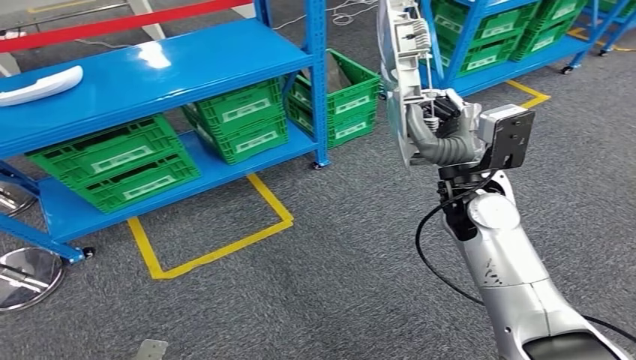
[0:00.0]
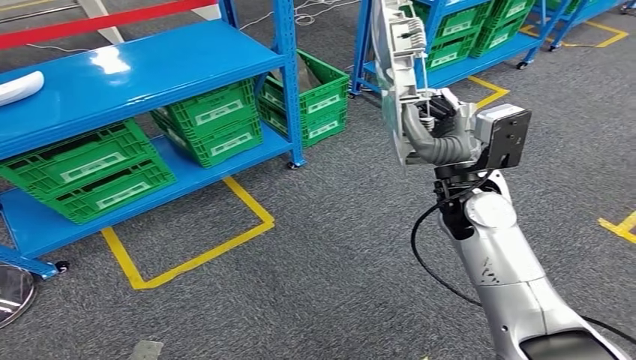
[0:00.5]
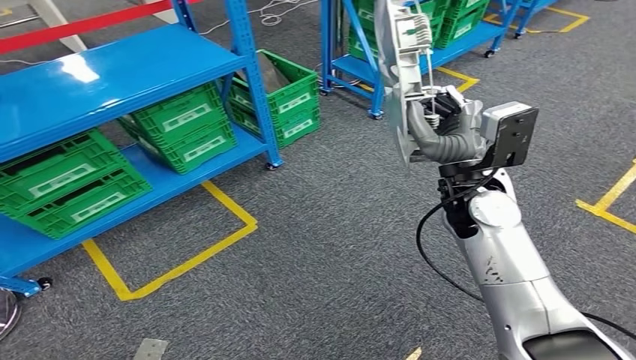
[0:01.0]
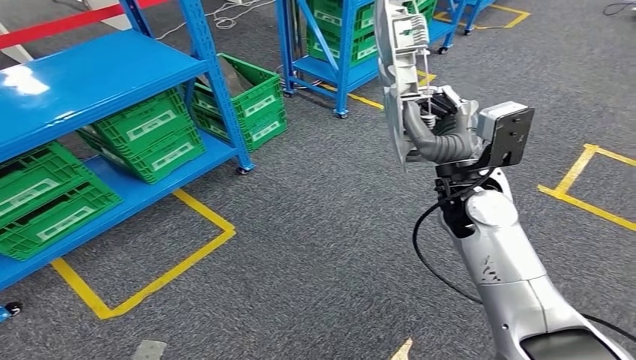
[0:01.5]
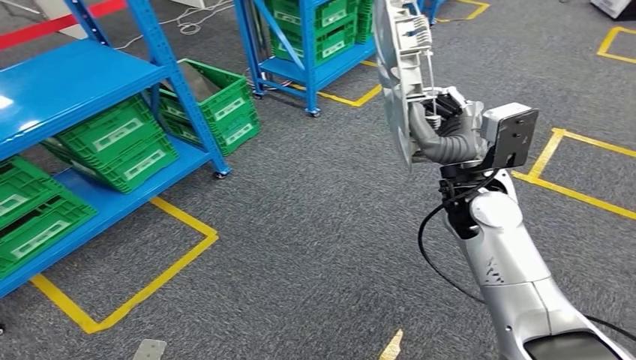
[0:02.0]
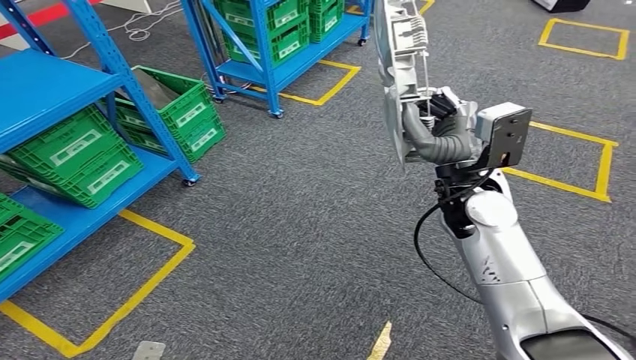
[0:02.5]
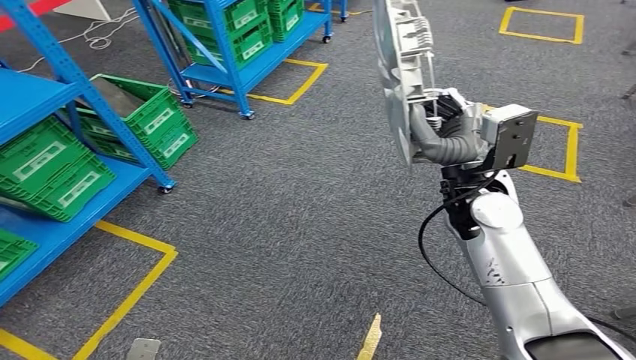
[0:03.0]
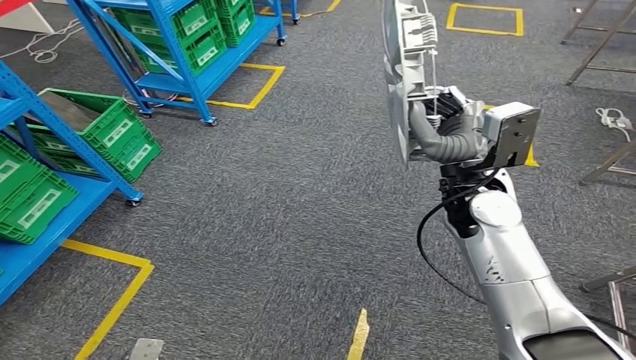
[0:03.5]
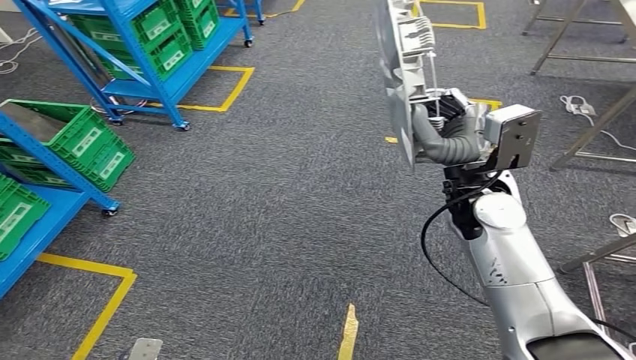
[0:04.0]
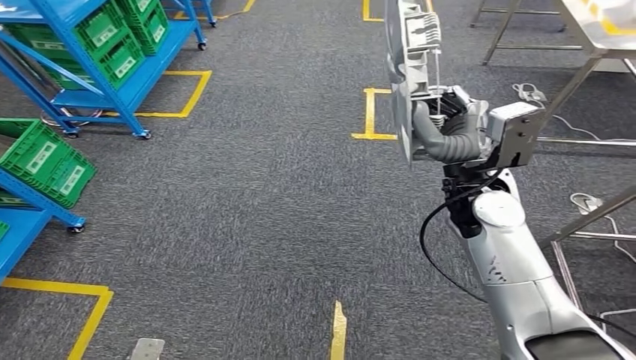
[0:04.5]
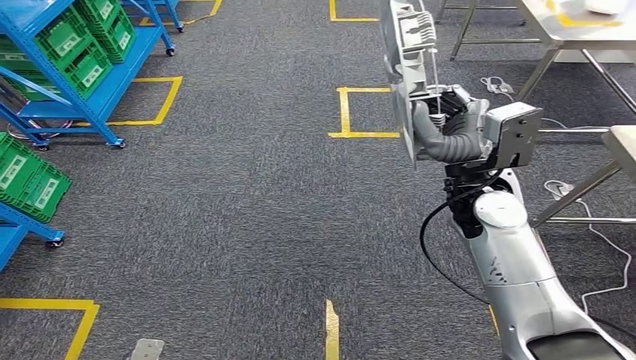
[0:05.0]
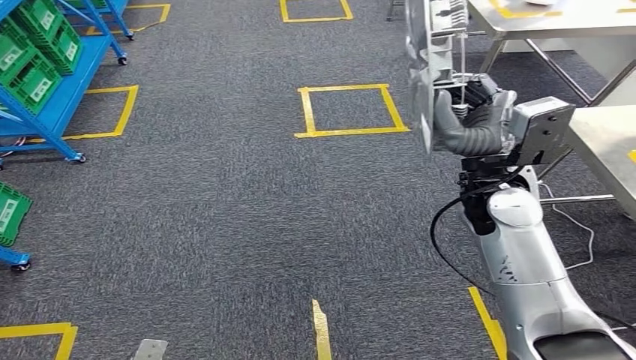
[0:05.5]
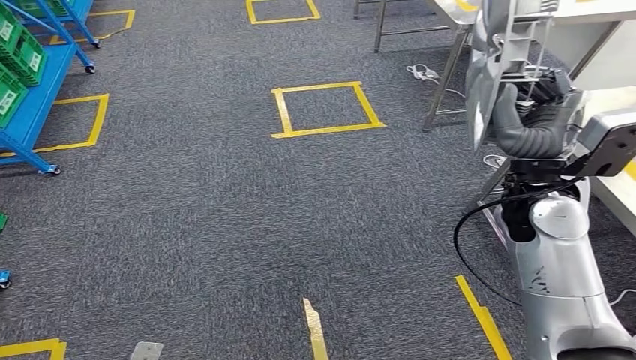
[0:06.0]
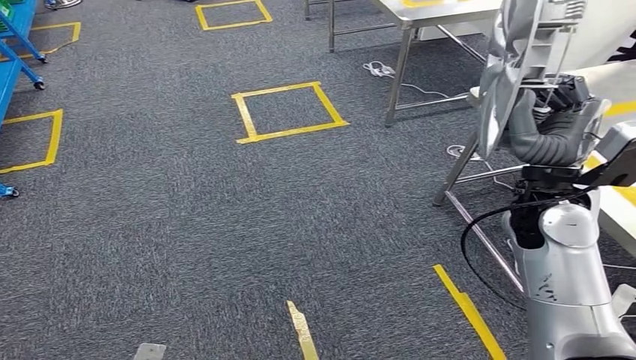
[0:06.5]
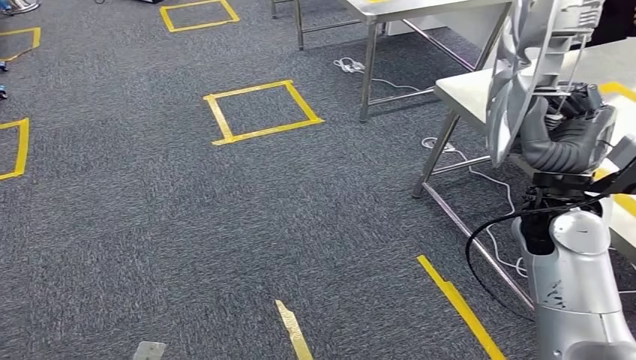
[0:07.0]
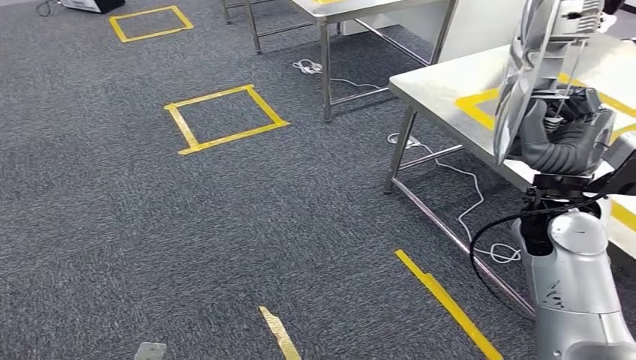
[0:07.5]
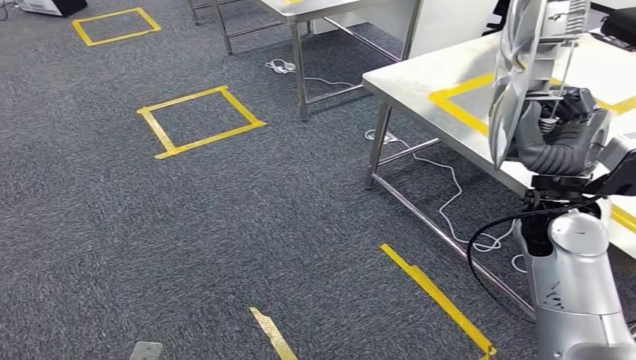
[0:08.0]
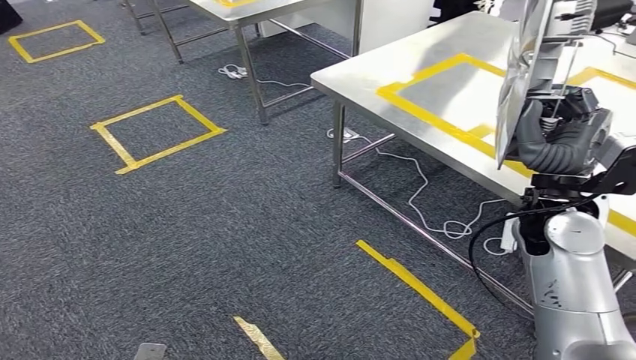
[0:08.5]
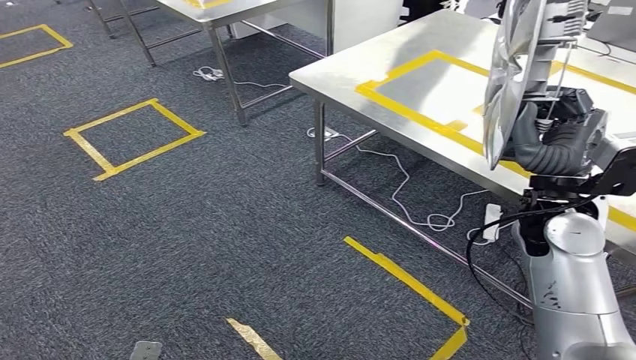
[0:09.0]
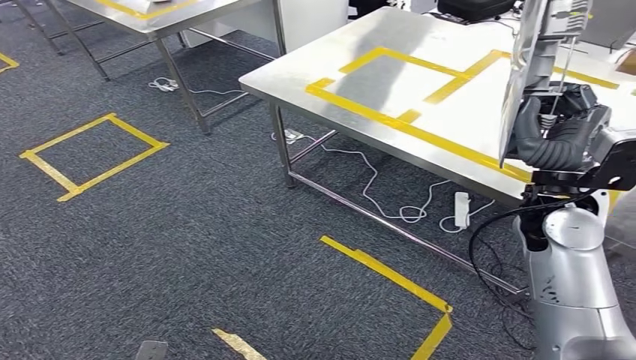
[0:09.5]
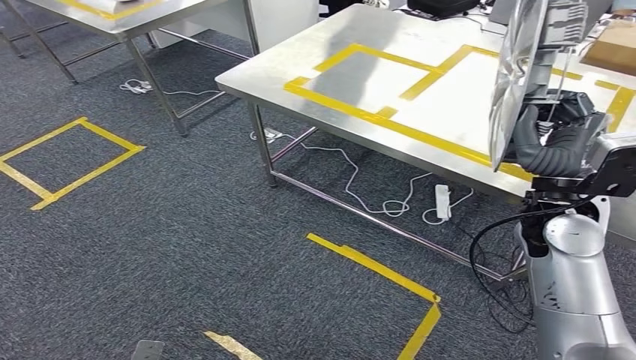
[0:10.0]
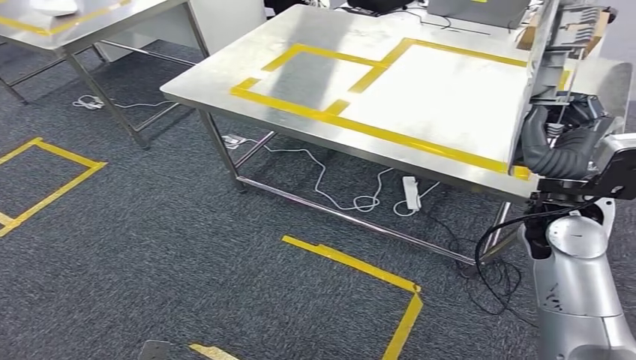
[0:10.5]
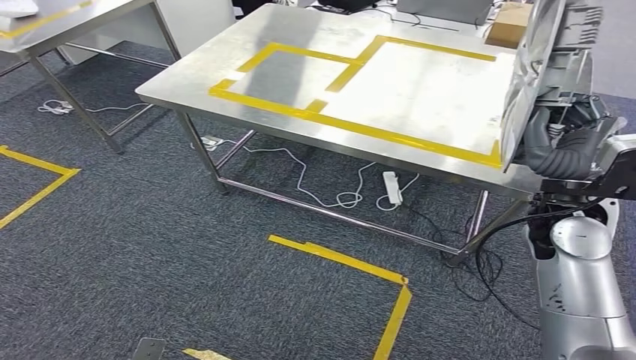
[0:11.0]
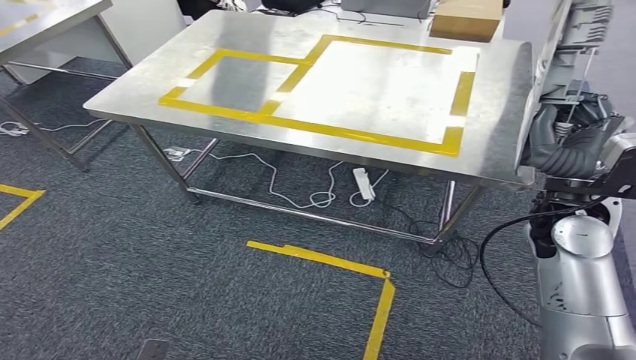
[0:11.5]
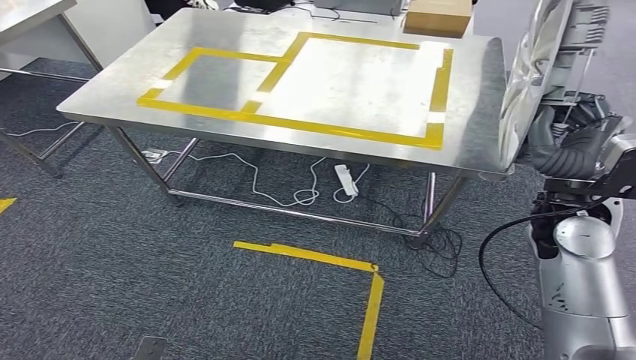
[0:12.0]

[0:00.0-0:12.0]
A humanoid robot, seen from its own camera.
Step, 0:00.0 to 0:02.5: Move the small component to the workbench.

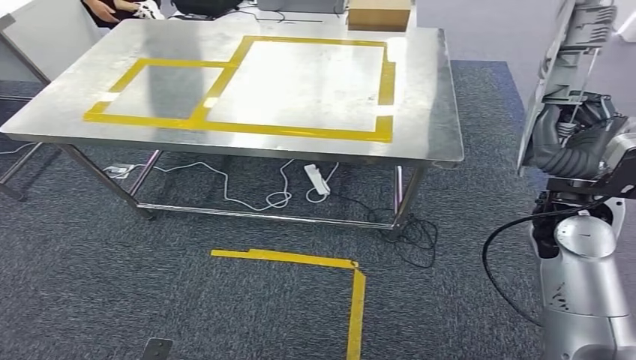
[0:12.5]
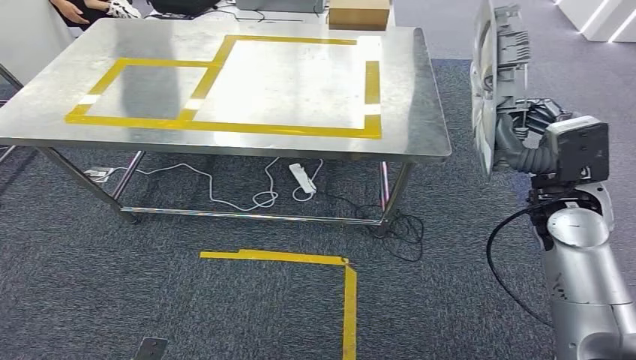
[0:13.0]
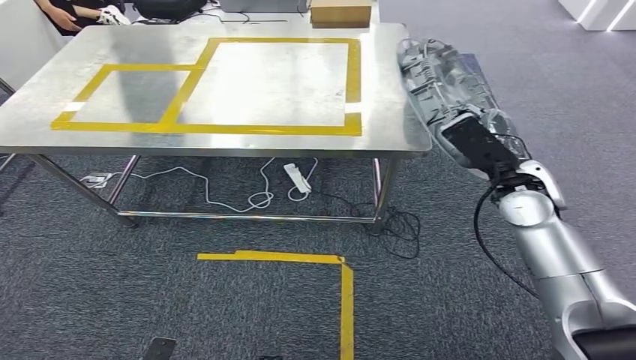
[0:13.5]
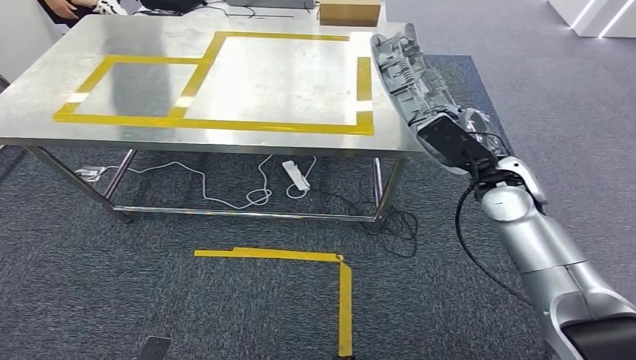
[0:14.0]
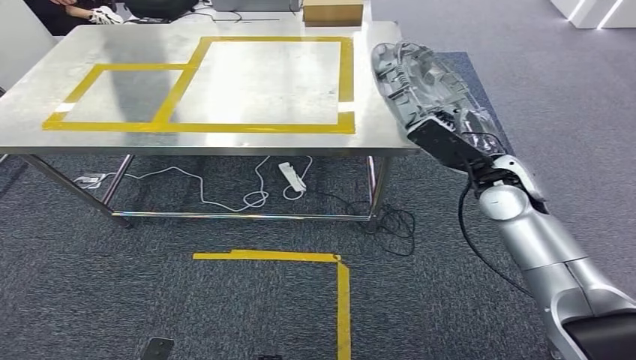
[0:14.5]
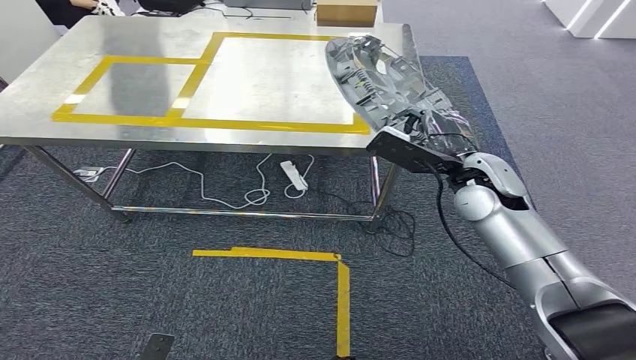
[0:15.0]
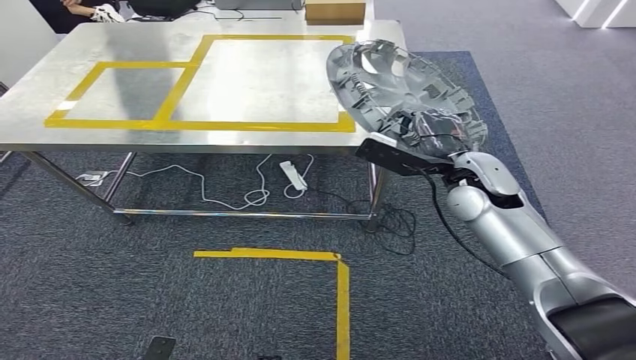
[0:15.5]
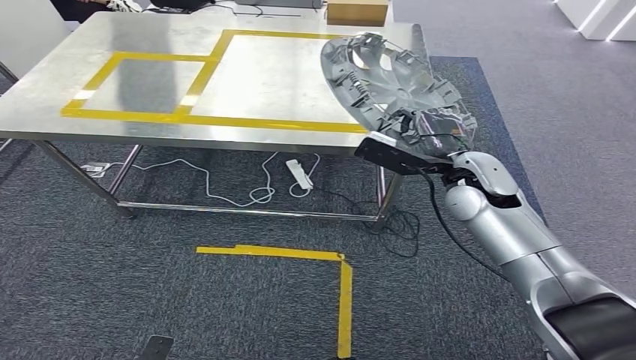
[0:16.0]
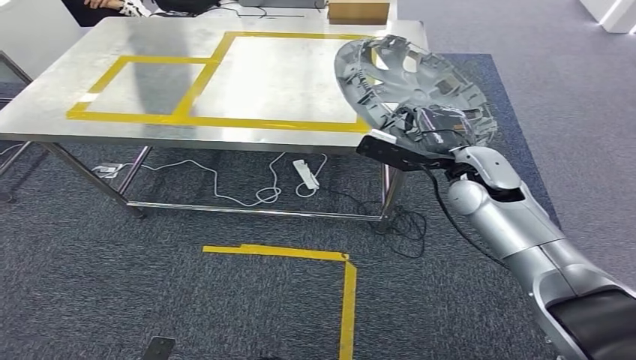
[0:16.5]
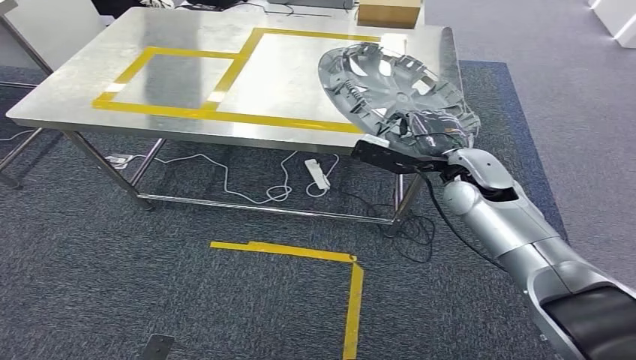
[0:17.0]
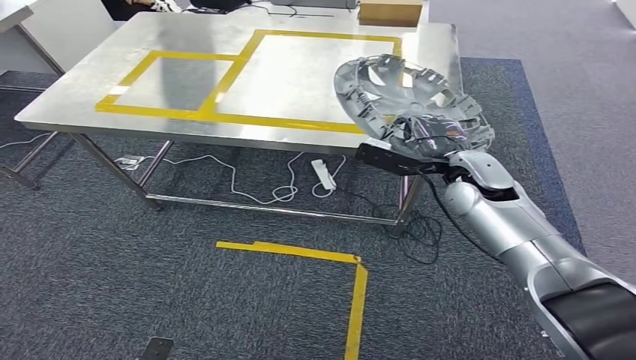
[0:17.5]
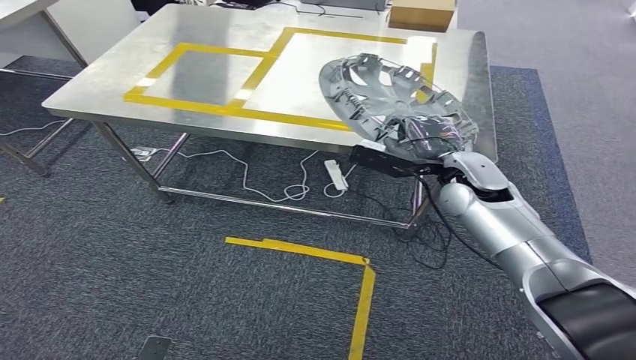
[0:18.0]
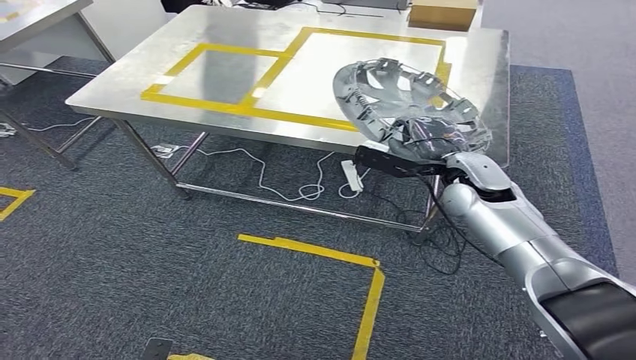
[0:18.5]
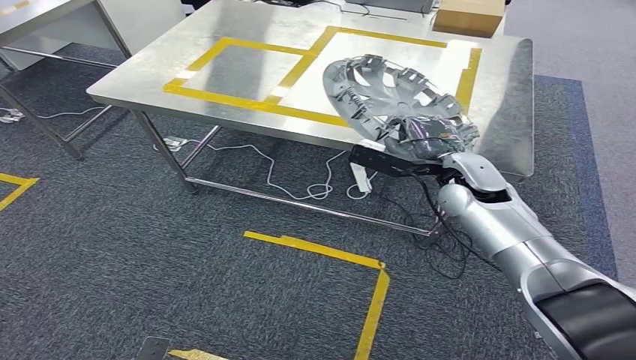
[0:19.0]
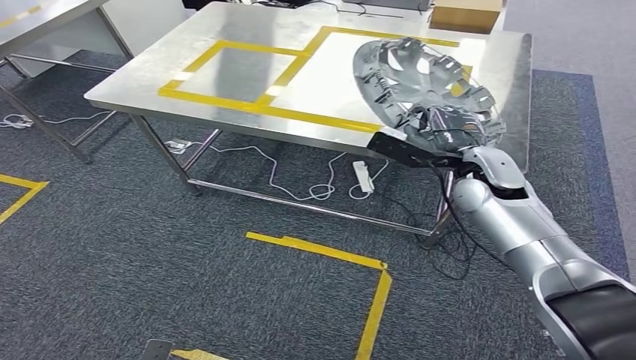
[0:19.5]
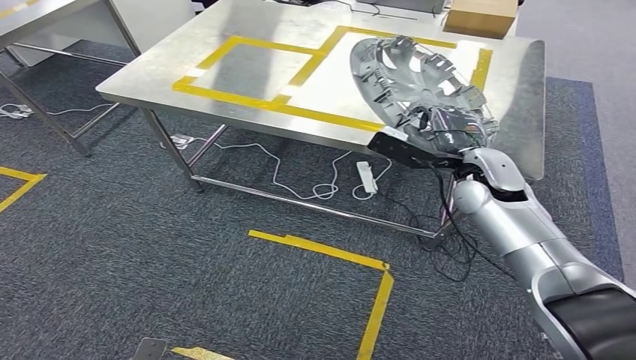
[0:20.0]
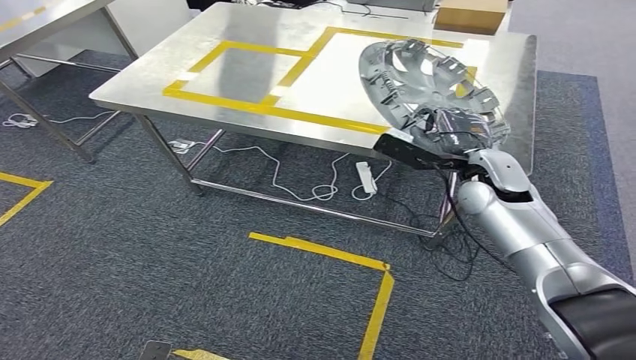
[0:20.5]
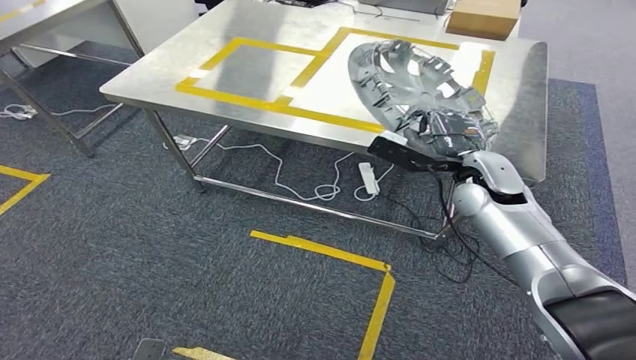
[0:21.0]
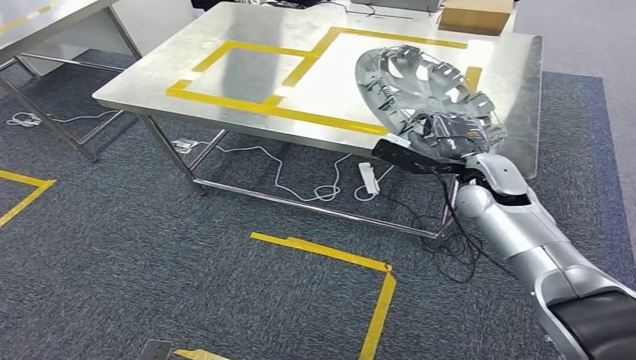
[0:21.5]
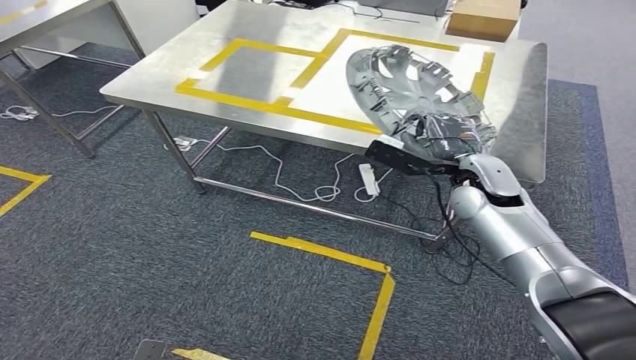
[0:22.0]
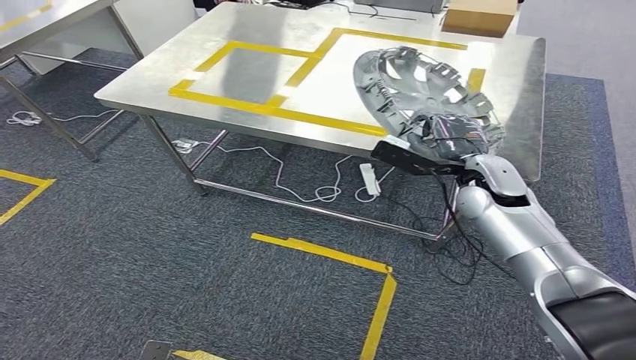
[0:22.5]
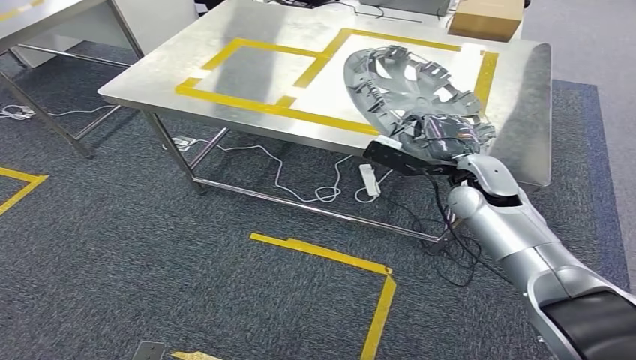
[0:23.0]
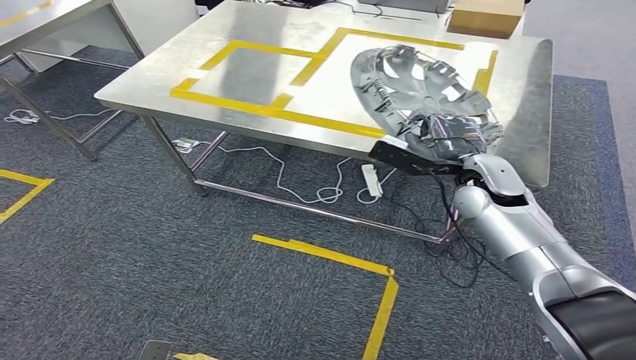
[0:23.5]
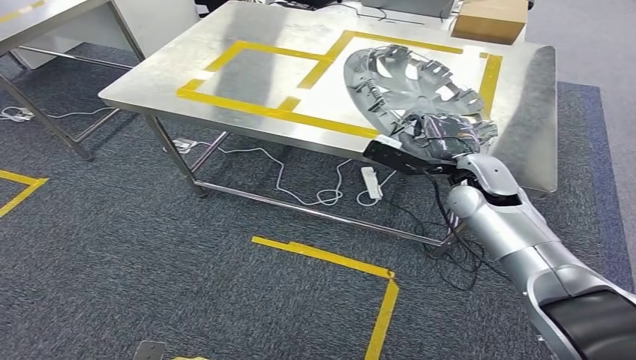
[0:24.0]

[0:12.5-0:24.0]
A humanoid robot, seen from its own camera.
0:20.0 to 0:22.0: Both hands stay about where they are.
0:22.0 to 0:24.0: Both hands stay put.
